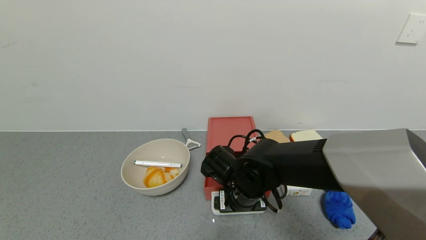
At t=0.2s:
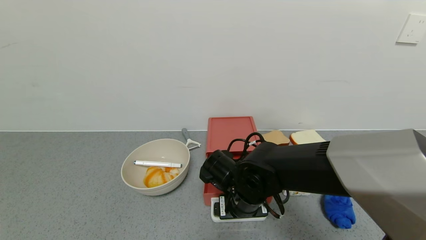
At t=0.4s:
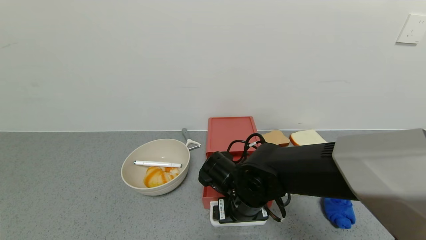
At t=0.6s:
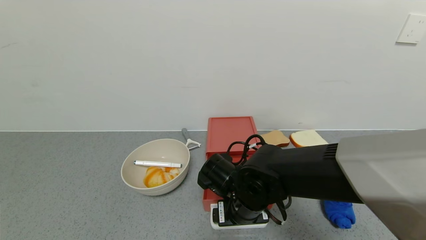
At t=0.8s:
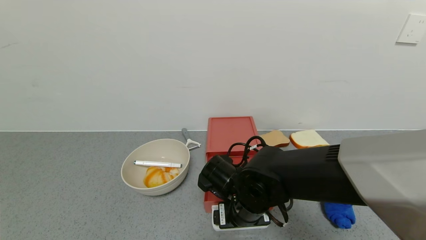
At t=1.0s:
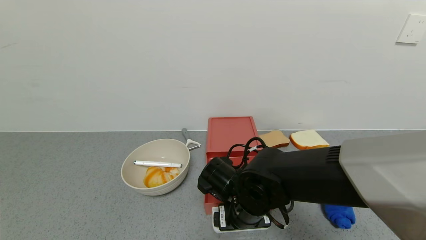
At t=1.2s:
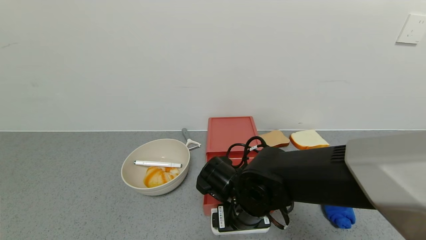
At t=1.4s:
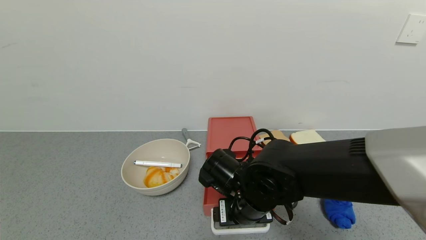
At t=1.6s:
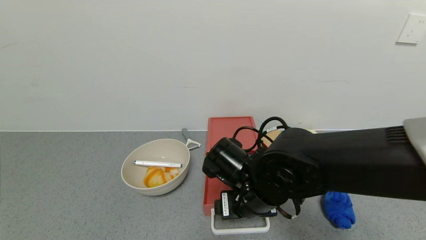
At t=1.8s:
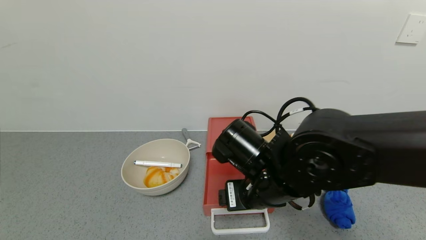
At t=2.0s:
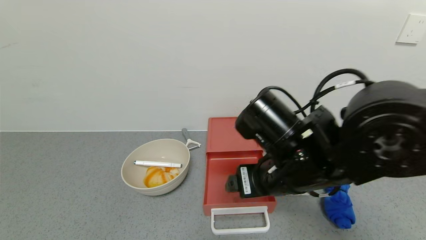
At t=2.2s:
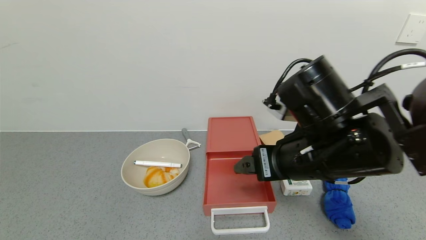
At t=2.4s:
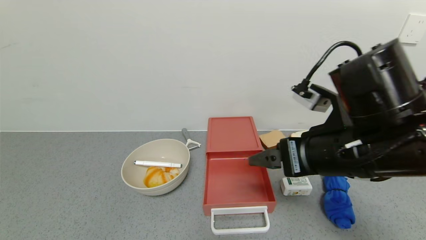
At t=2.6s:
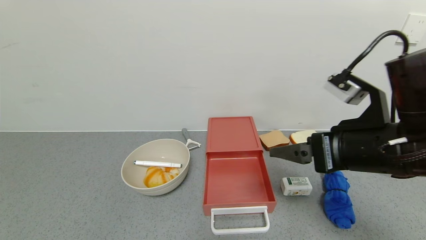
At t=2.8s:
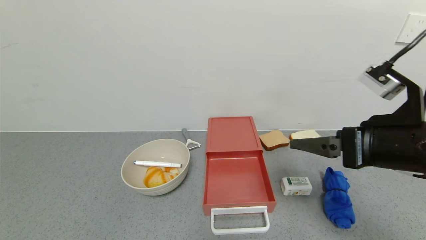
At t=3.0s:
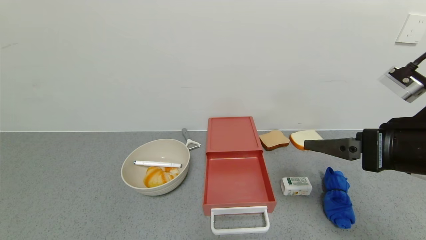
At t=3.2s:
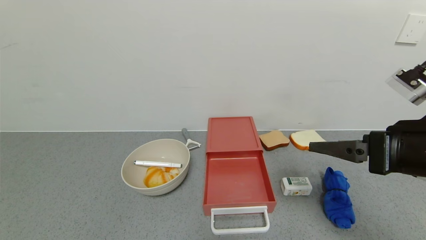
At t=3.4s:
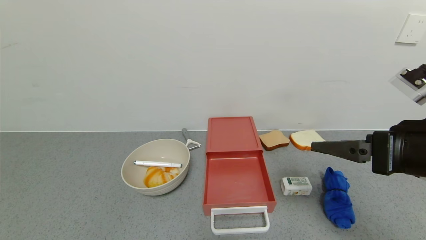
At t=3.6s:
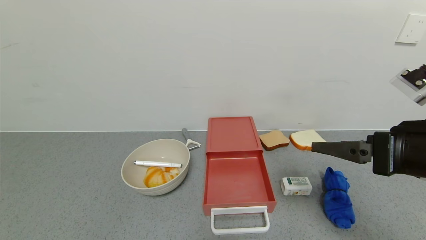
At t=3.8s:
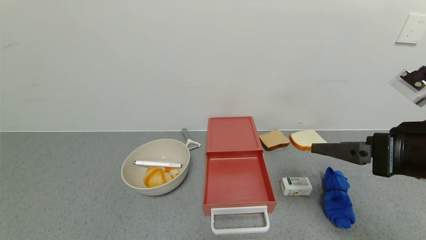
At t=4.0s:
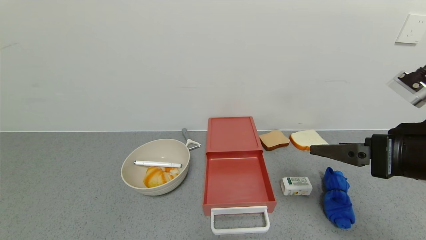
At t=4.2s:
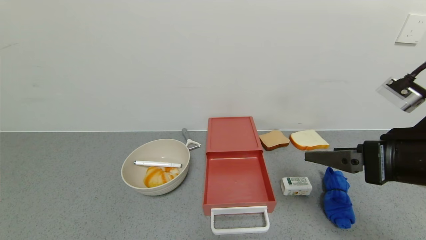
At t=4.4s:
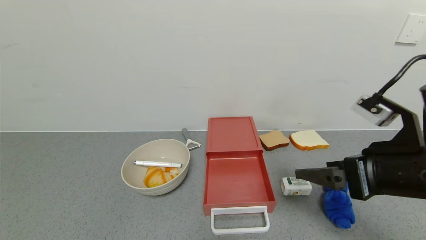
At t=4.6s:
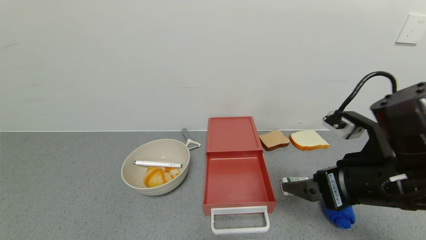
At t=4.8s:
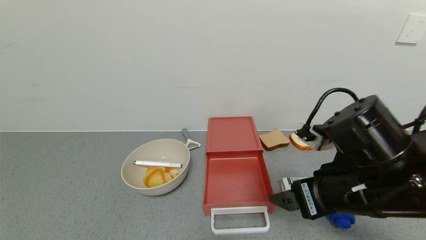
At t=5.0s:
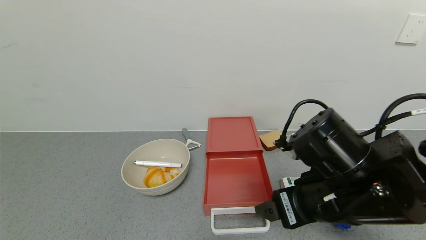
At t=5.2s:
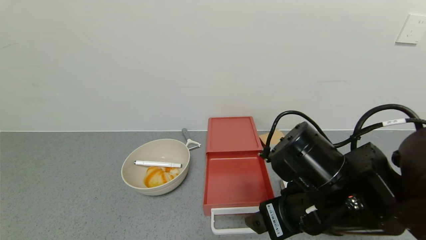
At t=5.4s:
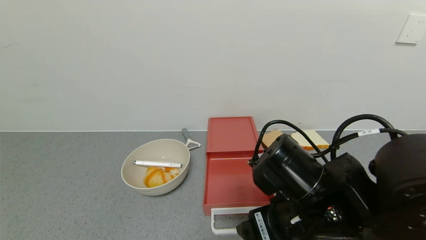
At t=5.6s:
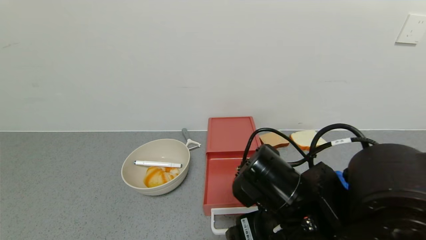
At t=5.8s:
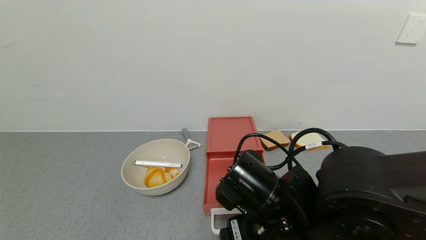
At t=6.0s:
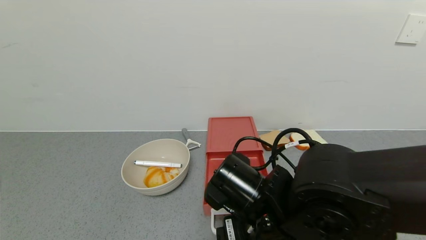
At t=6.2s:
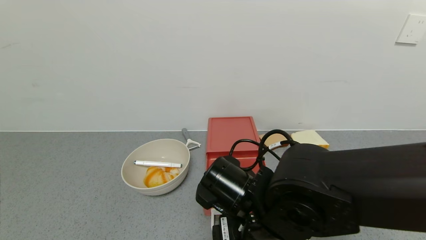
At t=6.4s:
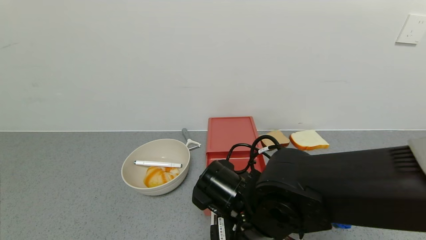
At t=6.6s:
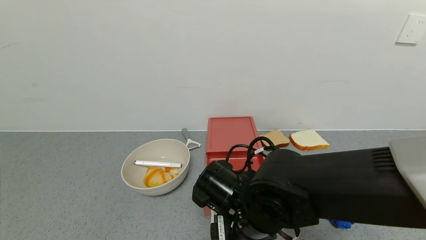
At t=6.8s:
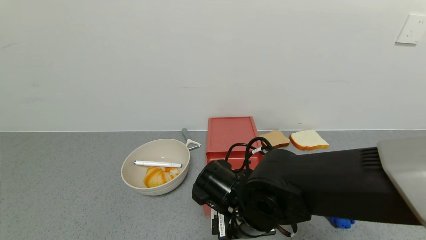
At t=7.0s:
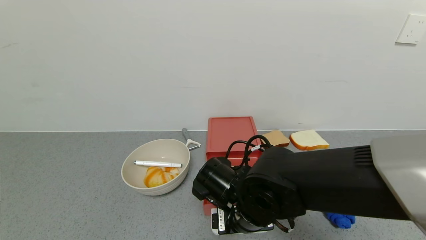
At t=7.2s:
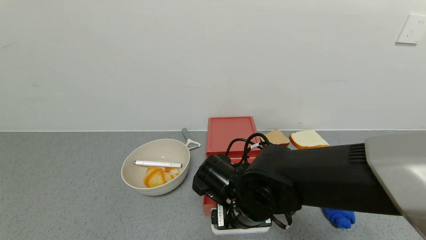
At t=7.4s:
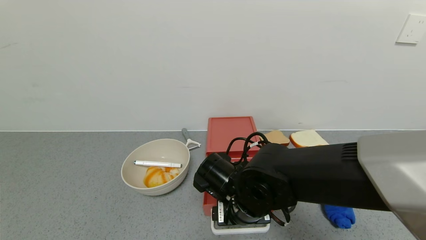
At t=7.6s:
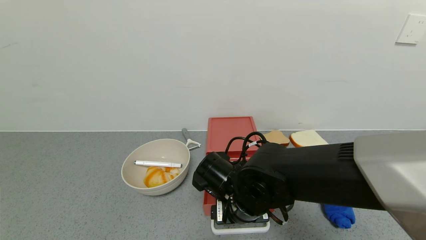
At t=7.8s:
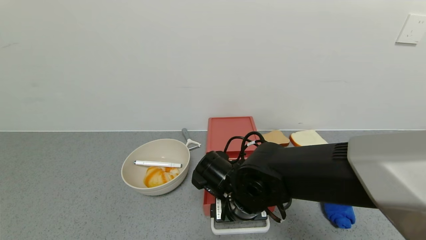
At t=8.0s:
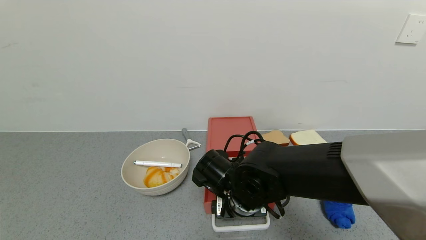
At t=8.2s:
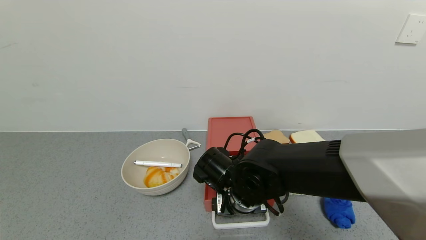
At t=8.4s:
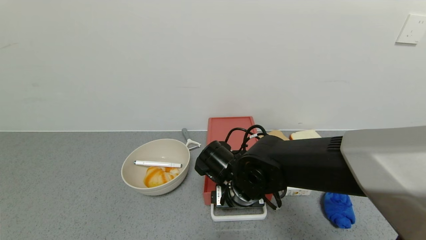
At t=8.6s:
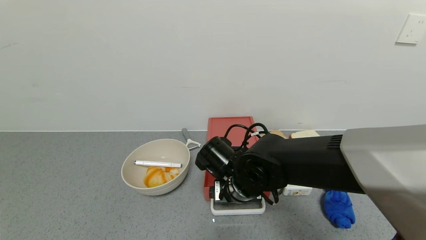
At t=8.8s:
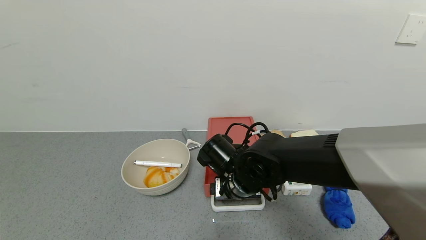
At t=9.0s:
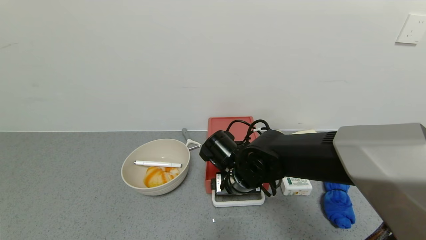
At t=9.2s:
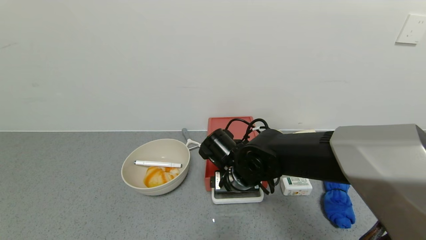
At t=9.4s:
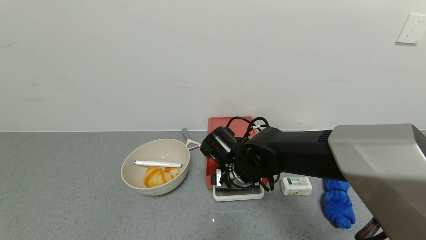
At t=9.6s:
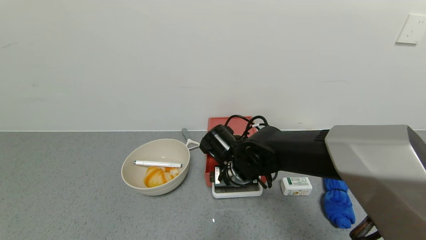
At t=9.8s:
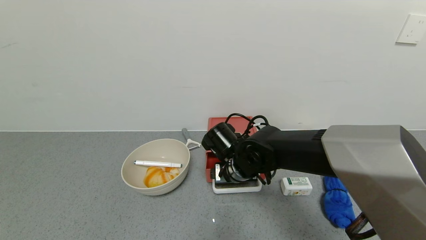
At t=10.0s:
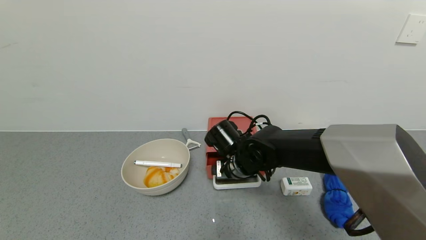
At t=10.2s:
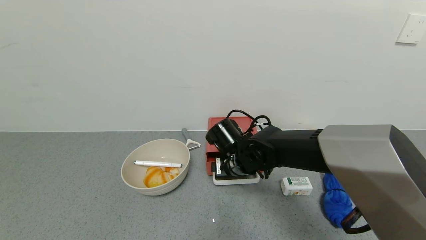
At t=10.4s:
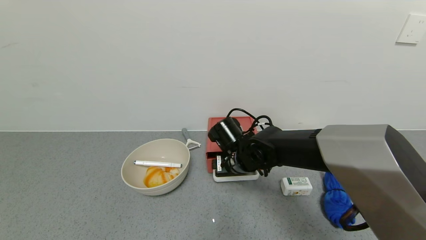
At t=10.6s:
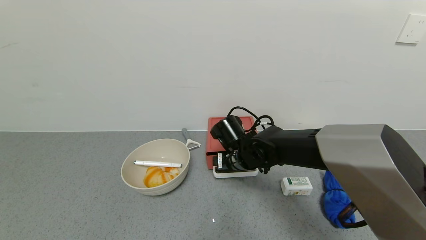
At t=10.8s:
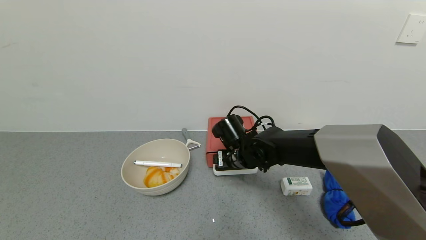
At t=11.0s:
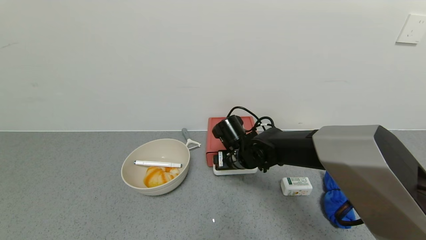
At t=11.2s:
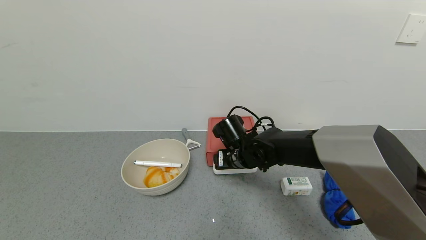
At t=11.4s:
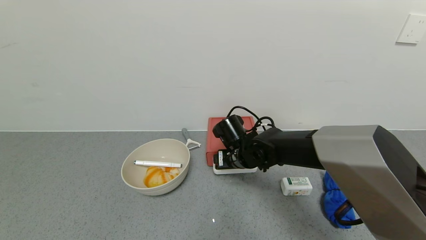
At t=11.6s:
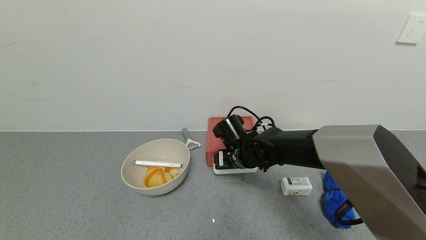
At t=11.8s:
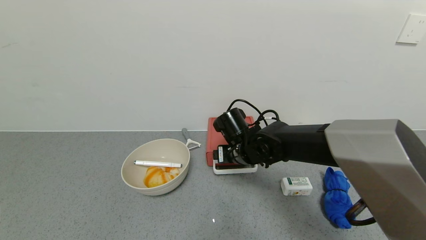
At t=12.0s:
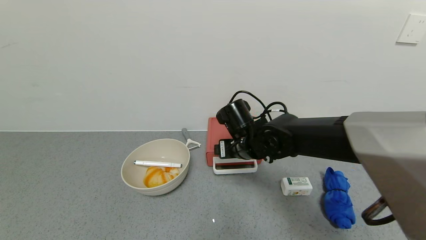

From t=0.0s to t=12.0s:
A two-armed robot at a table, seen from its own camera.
Task of the whole recording: use the gripper to open the drawer and close the red drawer.
Step, from t=2.0s to t=12.0s: Close the red drawer with the right gripper.
From t=0.0s to t=1.6s: The right gripper changes place by approximately 5 cm.
From t=1.6s to t=3.0s: The right gripper is displaced to the right and upward by some 25 cm.
From t=3.0s to t=4.4s: There are only small adjustments of the grippers.
From t=4.4s to t=6.0s: The right gripper shifts about 20 cm to the left and downward.
From t=6.0s to t=7.6s: The right gripper heads forward, covering approximately 5 cm.
From t=7.6s to t=9.0s: The right gripper goes about 5 cm forward.
From t=9.0s to t=10.4s: The right gripper travels forward by about 5 cm.
From t=10.4s to t=12.0s: The right gripper travels upward by approximately 5 cm.

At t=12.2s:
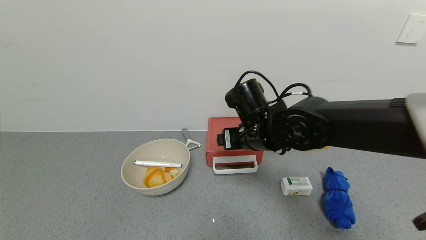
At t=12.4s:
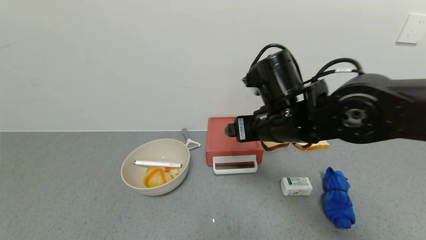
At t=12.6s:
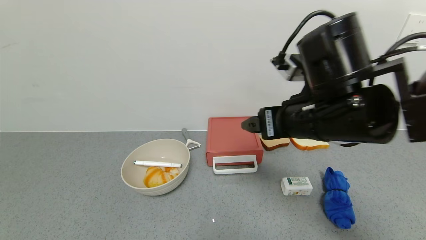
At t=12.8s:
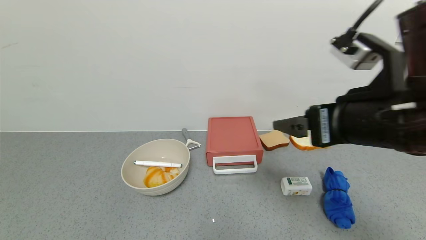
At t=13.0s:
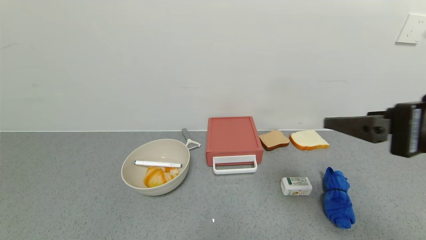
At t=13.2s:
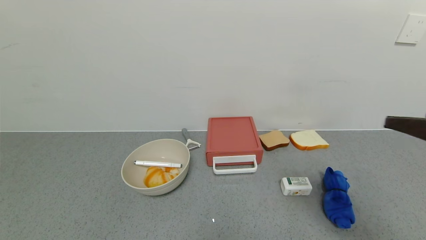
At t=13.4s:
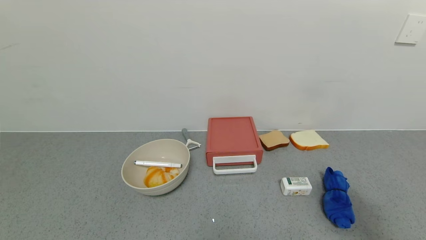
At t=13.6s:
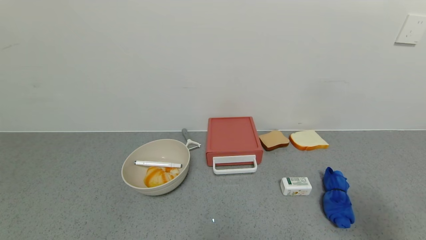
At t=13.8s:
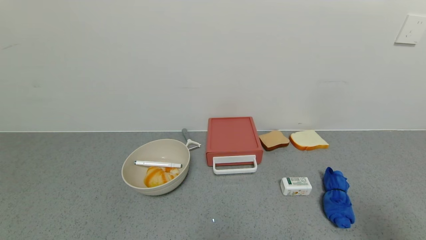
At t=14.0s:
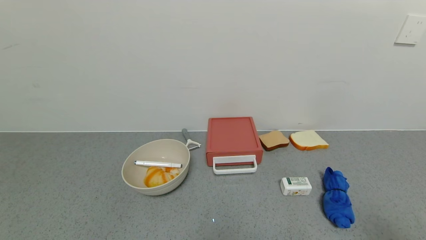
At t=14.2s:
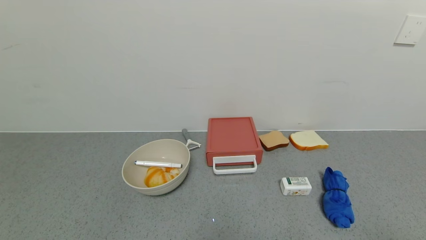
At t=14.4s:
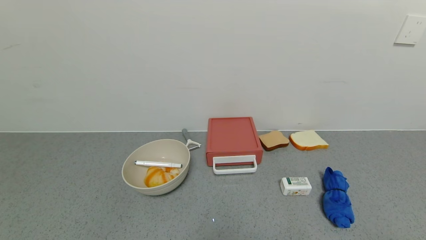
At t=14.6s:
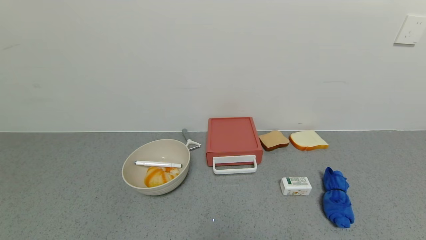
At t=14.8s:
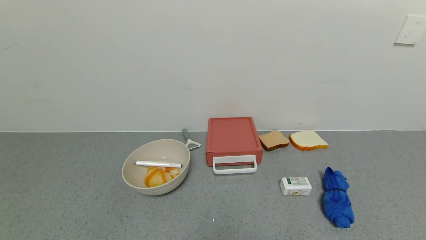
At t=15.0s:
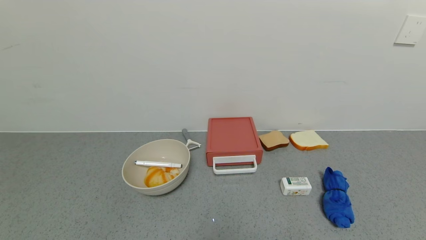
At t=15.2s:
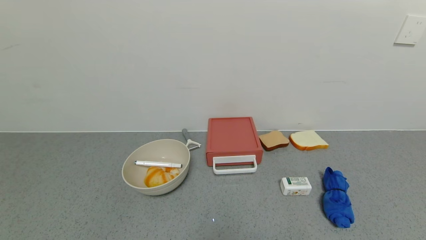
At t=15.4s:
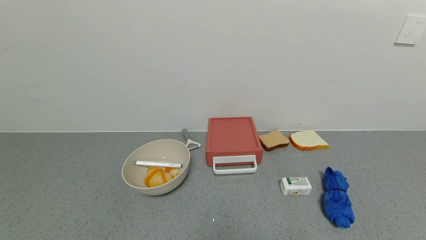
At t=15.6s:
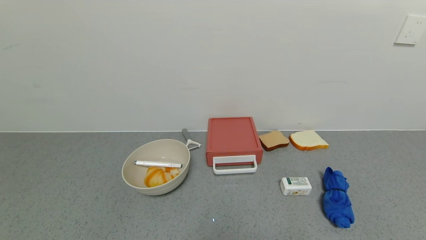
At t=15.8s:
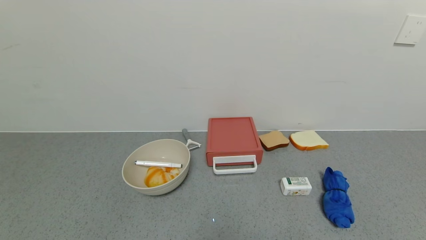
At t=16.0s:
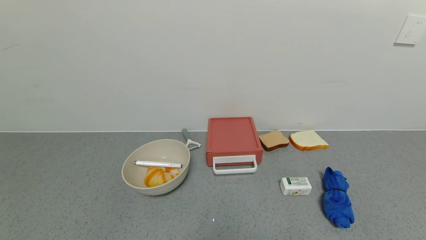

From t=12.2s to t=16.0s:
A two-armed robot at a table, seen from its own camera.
Task of the whole recording: use the gripper to open the drawer and close the red drawer.
From t=12.2s to t=13.4s: The right gripper heads to the right and backward, covering about 35 cm.
From t=13.4s to t=14.8s: The right gripper shifts approximately 20 cm backward and downward.
